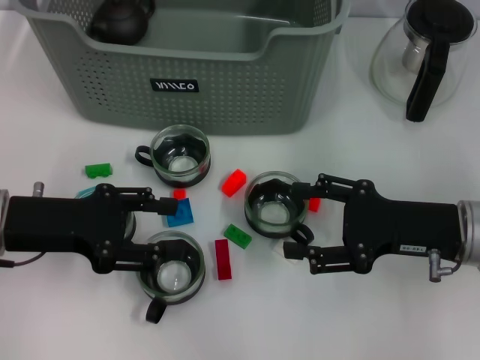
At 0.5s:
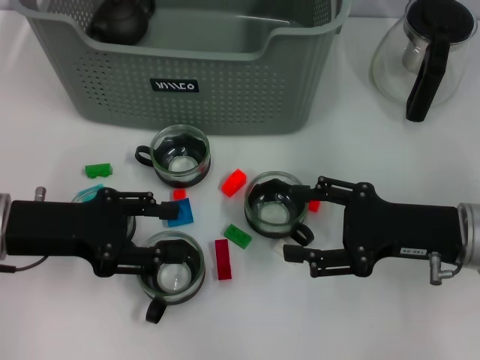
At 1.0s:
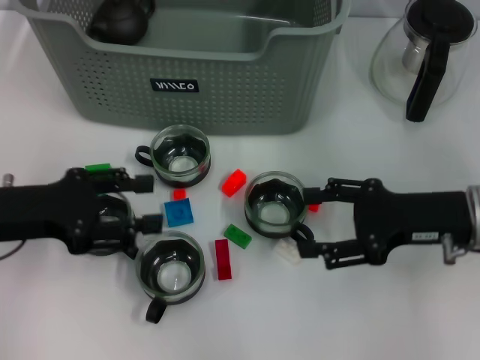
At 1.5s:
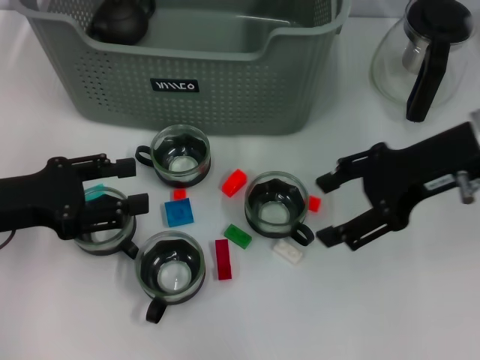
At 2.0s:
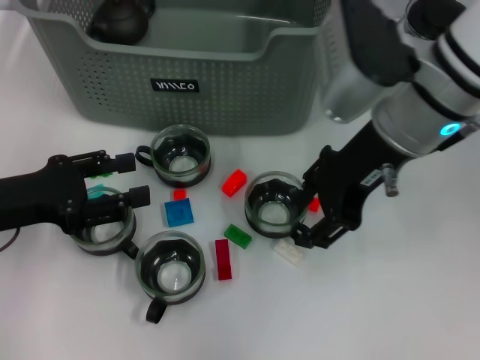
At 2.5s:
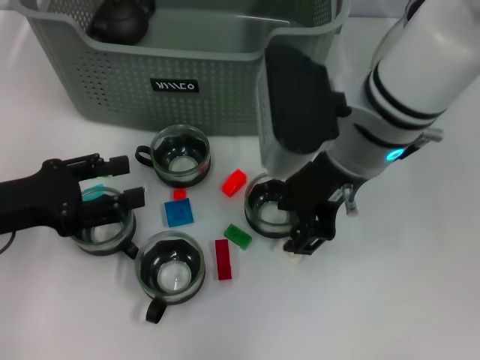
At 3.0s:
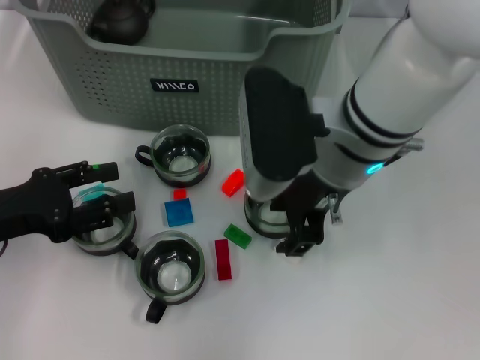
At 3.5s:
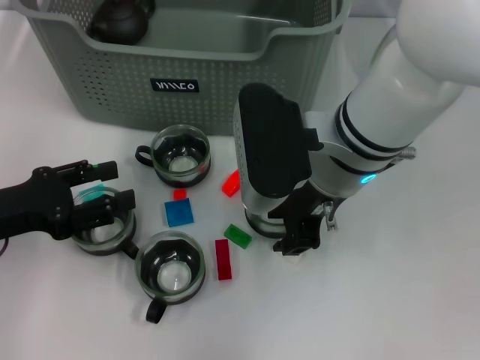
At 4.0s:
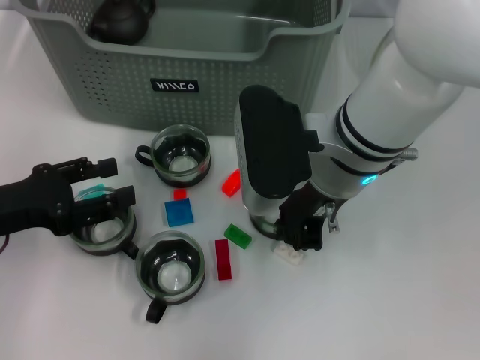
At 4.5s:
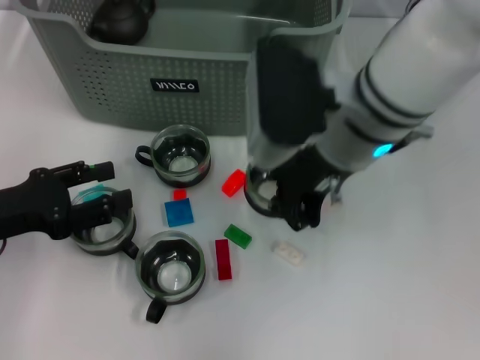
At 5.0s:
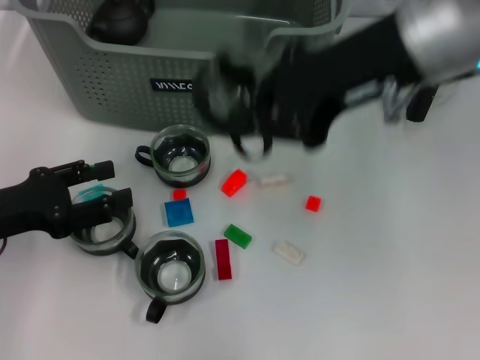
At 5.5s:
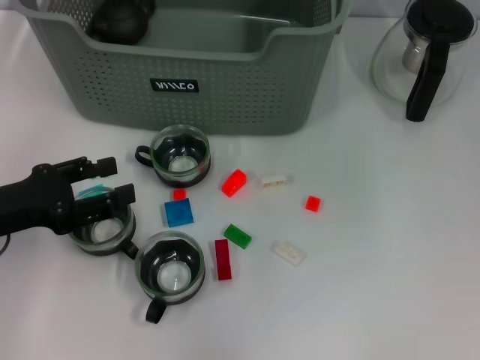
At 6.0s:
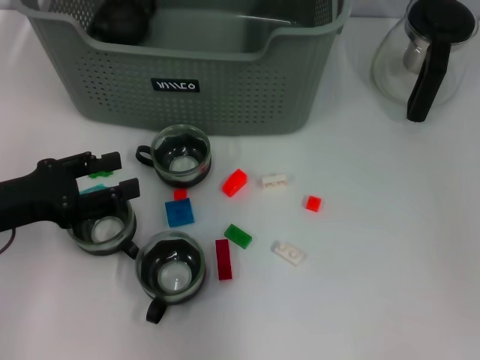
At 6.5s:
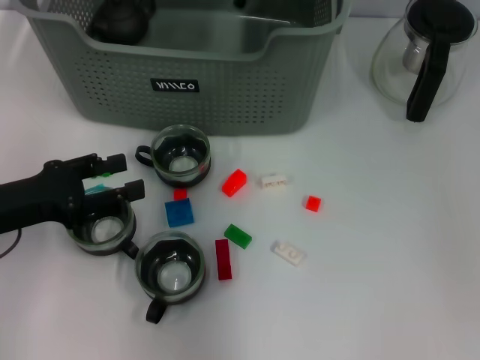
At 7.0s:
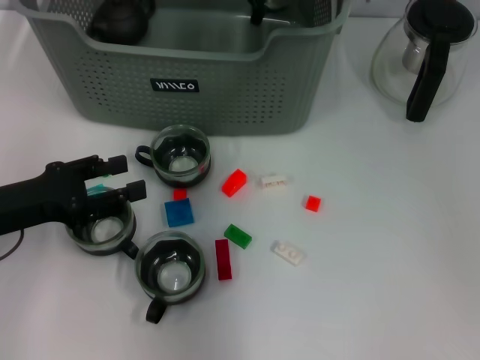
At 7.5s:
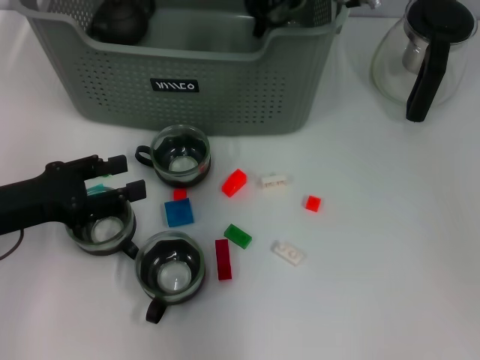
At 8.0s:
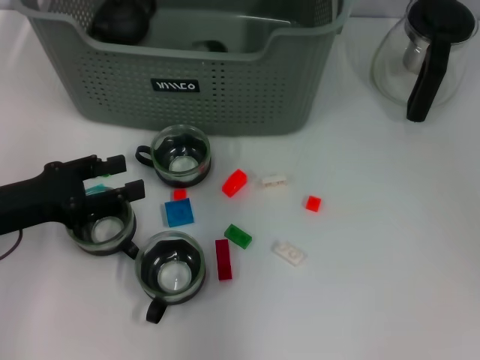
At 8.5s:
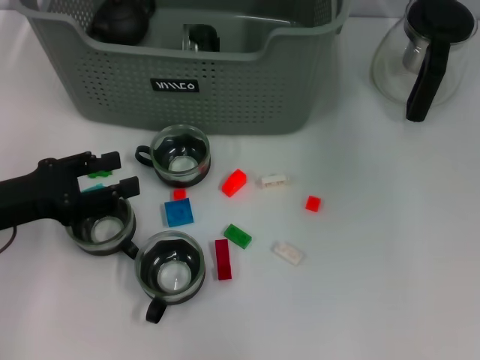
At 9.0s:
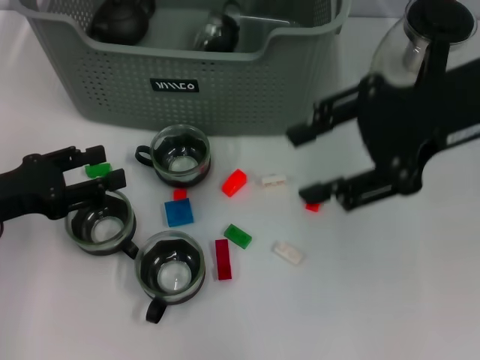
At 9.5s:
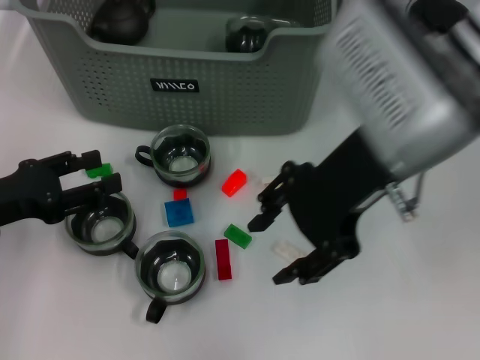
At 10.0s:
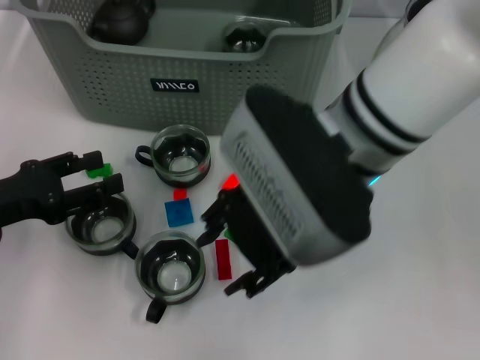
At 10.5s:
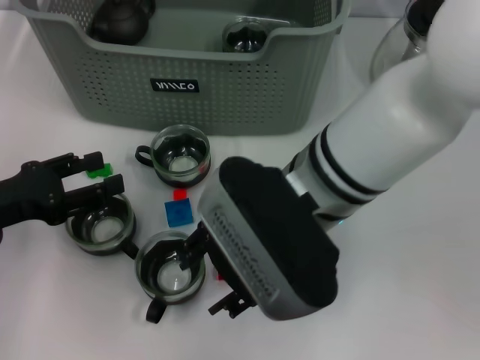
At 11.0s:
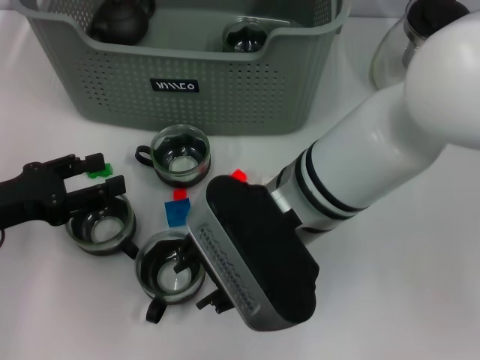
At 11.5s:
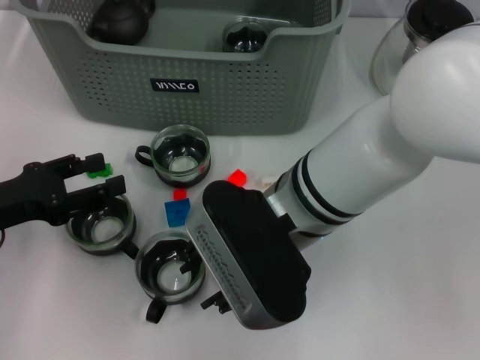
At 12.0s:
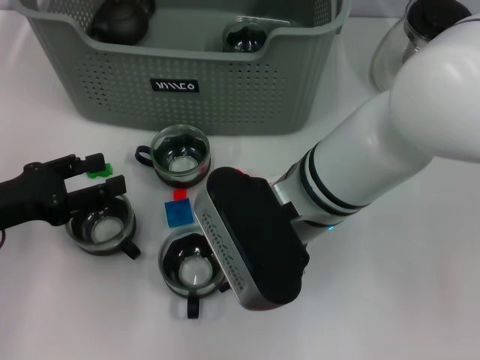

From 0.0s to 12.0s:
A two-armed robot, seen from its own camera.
Task of the whole recording: pick up the teacup on the table and place it into the storage bin, pick up the block on the table and place it into the storage bin.
Step, from 0.0s to 4.0s: Grasp the cup with right gripper.
Step, from 4.5s to 8.0s: Place the cup in the storage box with right gripper.
From 0.0s to 2.0s: The right gripper heads upward, to the left and forward, covering approximately 20 cm.
From 2.0s to 4.0s: The right gripper heads to the left, covering some 5 cm, and closes its fingers.
From 4.0s to 6.0s: The right gripper shifts some 20 cm upward and forward.
From 6.0s to 8.0s: The right gripper shifts by approximately 5 cm.
From 8.0s to 10.0s: The right gripper shifts approximately 15 cm backward, and opens up.
From 10.0s to 12.0s: The right gripper heads downward, covering some 5 cm.

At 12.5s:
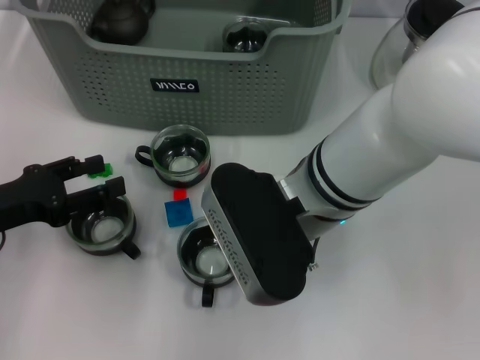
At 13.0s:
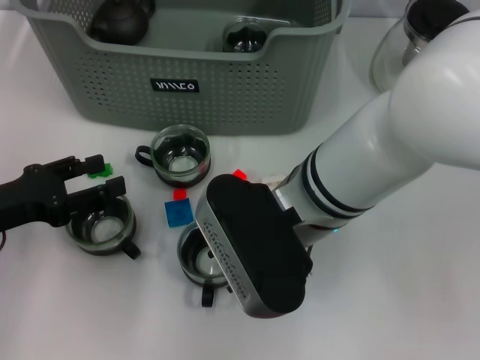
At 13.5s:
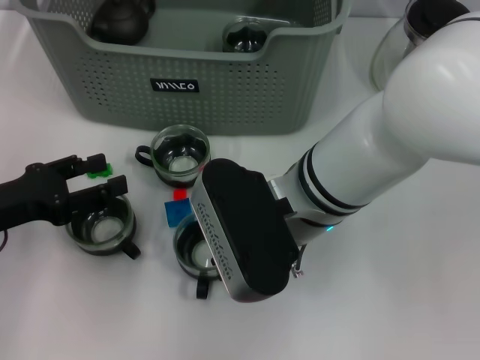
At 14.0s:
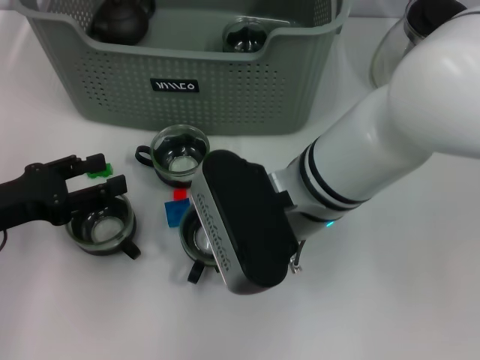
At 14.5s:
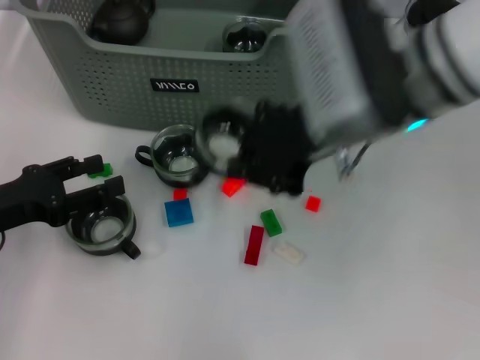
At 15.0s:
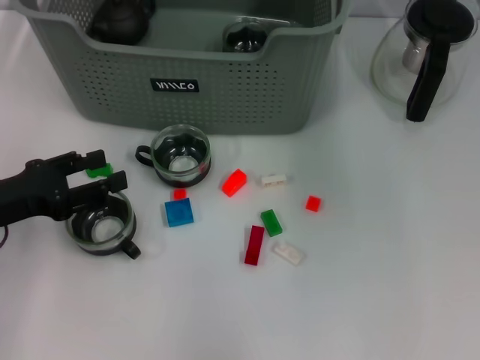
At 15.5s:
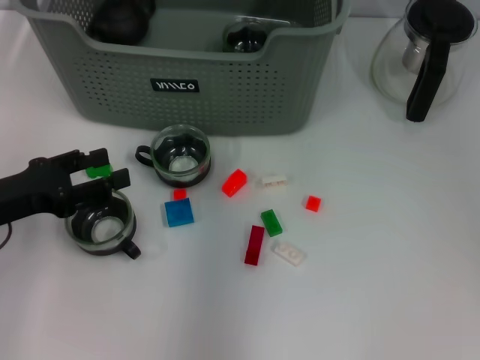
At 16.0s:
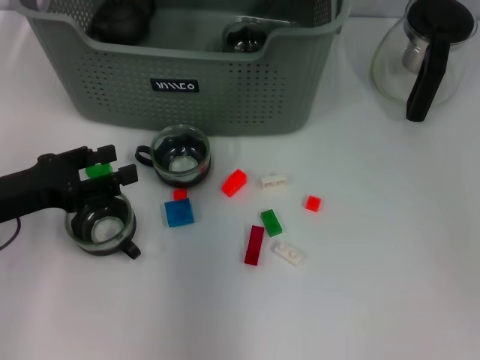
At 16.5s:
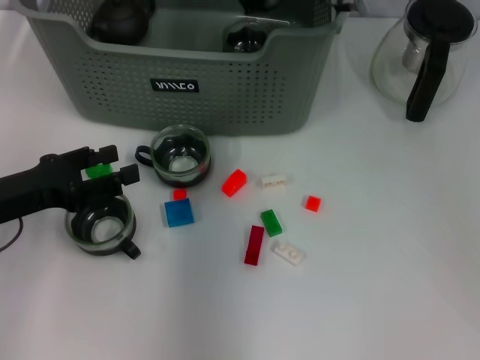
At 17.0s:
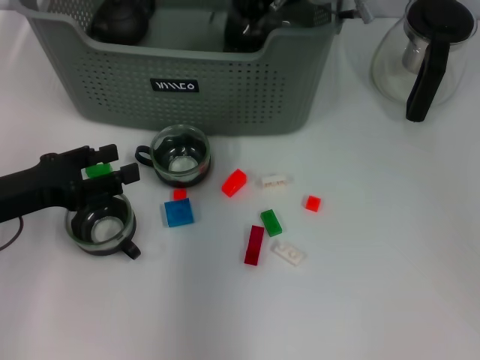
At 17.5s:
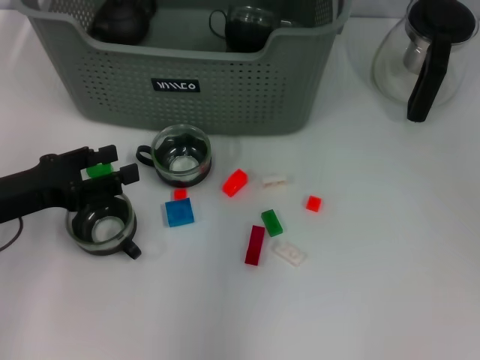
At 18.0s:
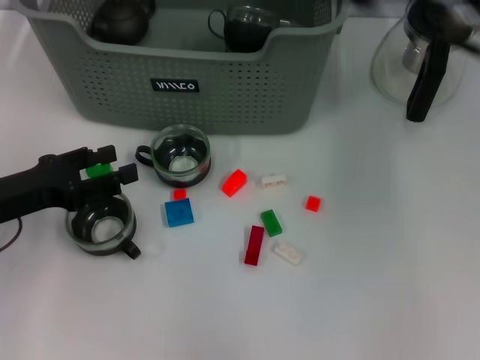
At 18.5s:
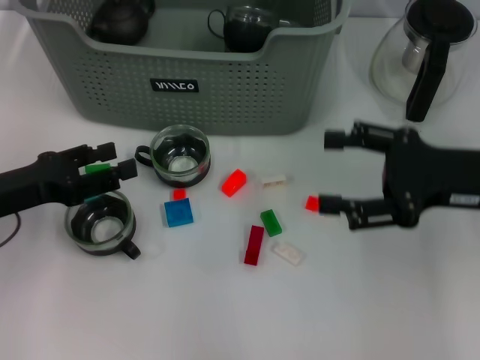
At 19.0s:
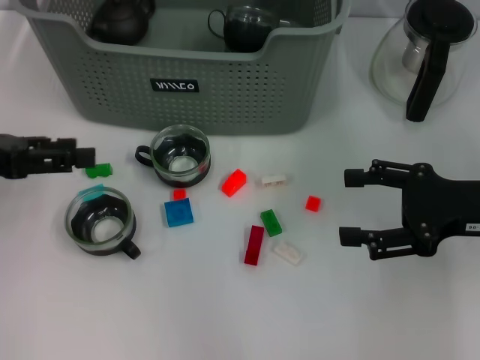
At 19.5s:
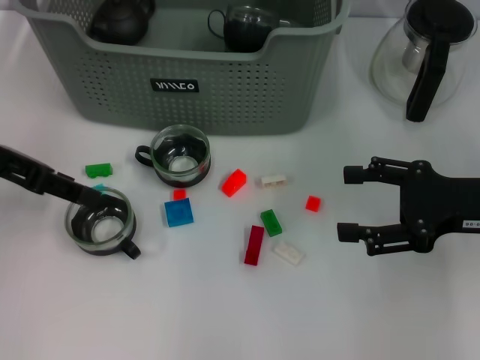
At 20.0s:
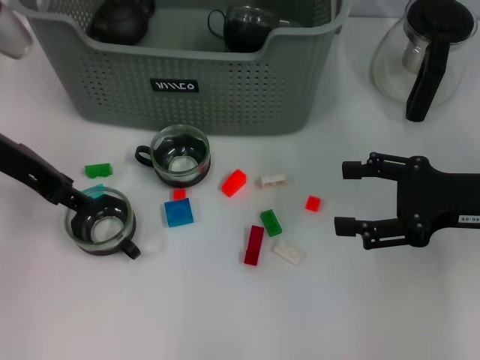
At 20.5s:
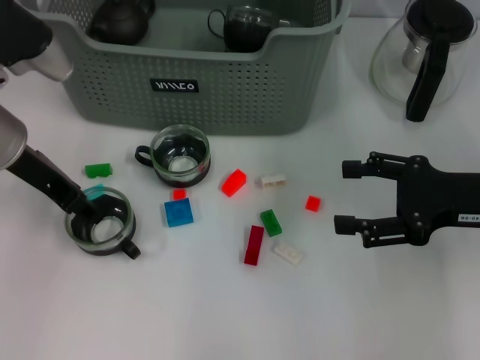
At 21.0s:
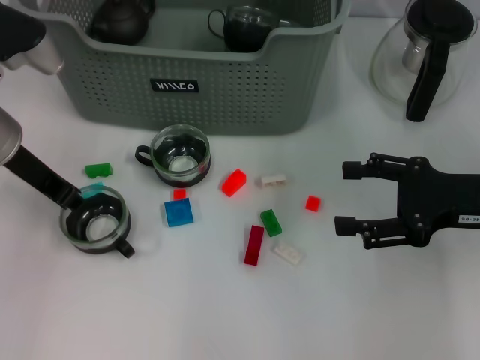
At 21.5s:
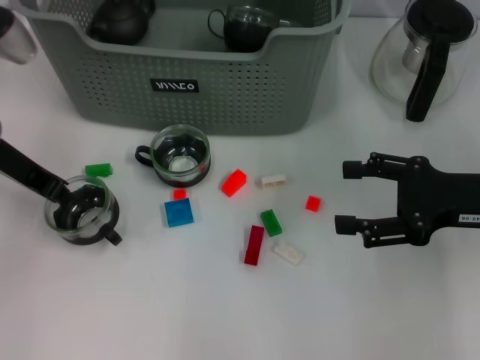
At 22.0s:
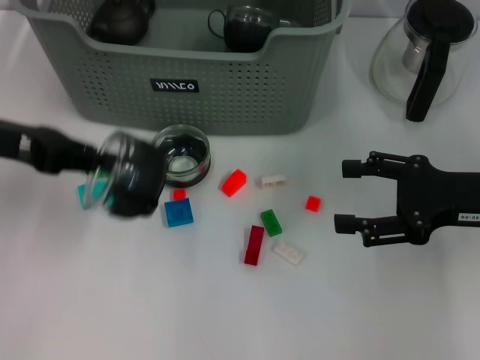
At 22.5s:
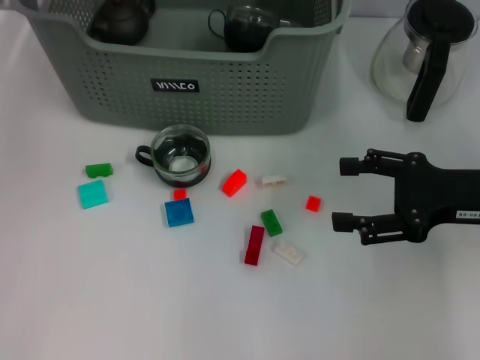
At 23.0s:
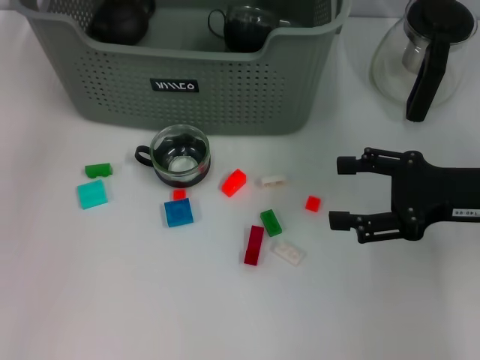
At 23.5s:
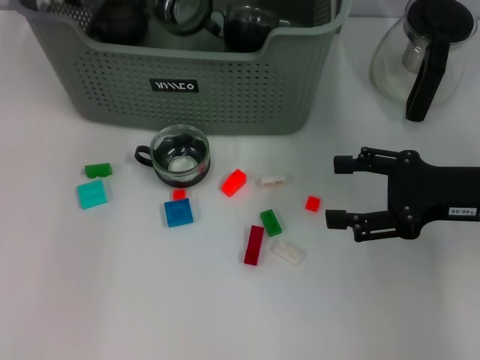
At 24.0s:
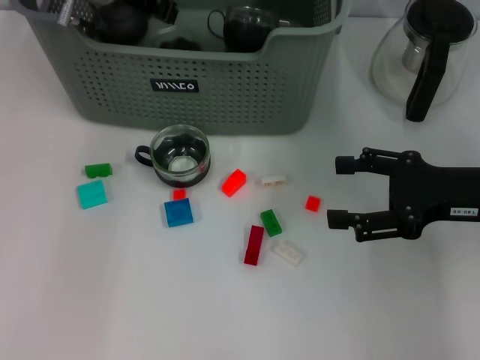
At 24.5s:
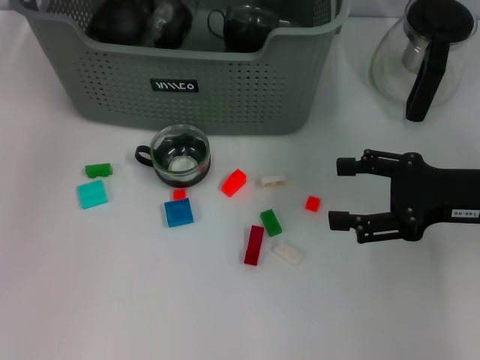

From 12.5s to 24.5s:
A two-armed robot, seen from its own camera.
Task of the whole recording: pick up the teacup on the table and place it into the storage bin, pick up the block on the table and place it into the storage bin.
Step, from 14.0s to 17.0s: Place the cup in the storage box with right gripper.
Step, from 18.0s to 21.0s: Grasp the cup with left gripper.
From 12.5s to 14.5s: The right gripper heads upward and to the right, covering roughly 10 cm, and closes.
From 14.5s to 16.5s: The right gripper shifts roughly 15 cm forward.
From 16.5s to 18.5s: The right gripper moves to the right and backward, approximately 25 cm, and opens its fingers.
From 18.5s to 20.5s: The left gripper travels forward, upward and to the right by some 15 cm.
From 20.5s to 22.5s: The left gripper is displaced upward and to the left by approximately 10 cm, and closes.
From 22.5s to 24.5s: The left gripper shifts some 10 cm forward and to the right, and opens.

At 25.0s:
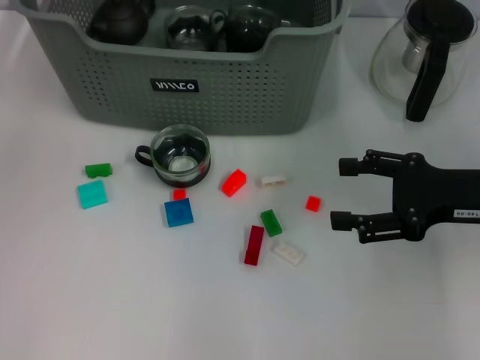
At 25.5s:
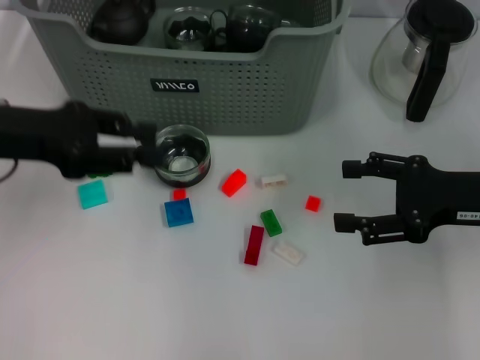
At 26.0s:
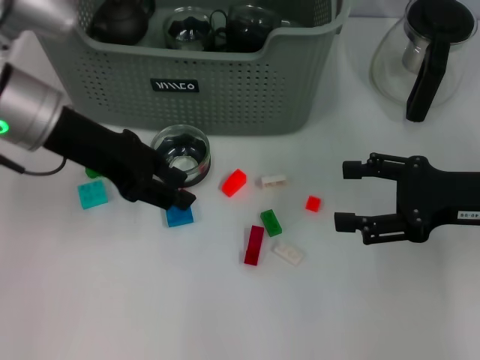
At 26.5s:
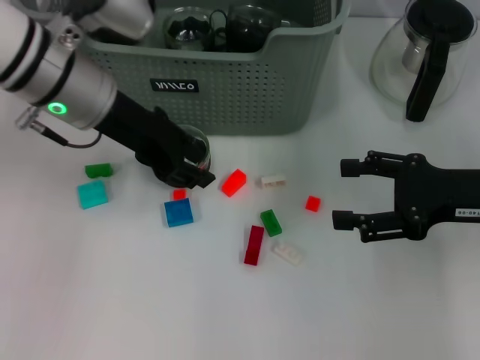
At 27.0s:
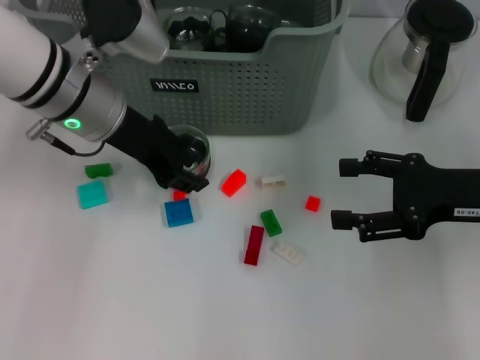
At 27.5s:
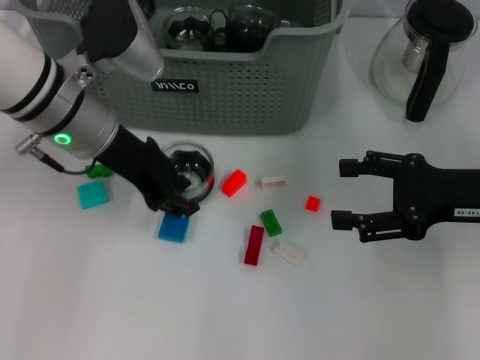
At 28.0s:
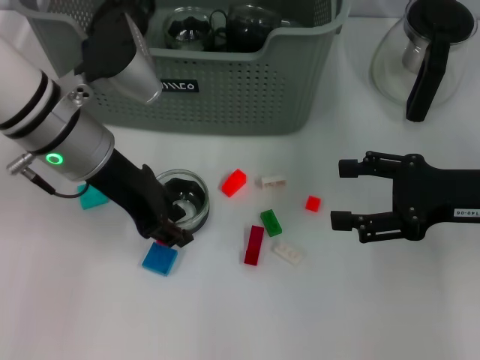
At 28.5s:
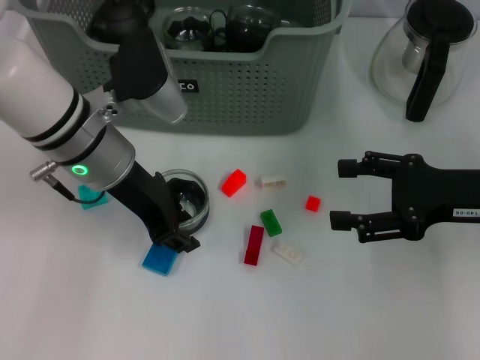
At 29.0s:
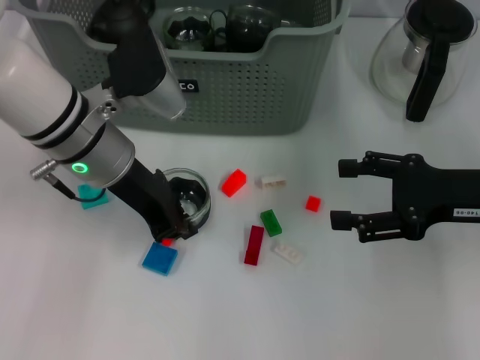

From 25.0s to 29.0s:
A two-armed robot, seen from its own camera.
Task of the whole recording: pick up the teacup on the table and place it into the storage bin, pick up the block on the table and place it into the storage bin.
From 25.0s to 27.0s: The left gripper moves to the right and downward, roughly 15 cm.
From 27.0s to 29.0s: The grippers stay close to where they were, moving slightly.
